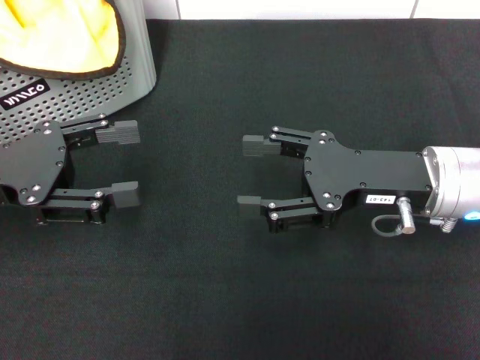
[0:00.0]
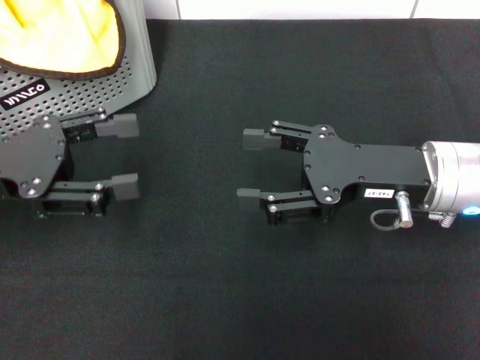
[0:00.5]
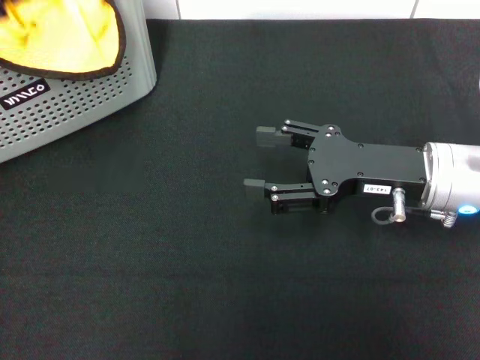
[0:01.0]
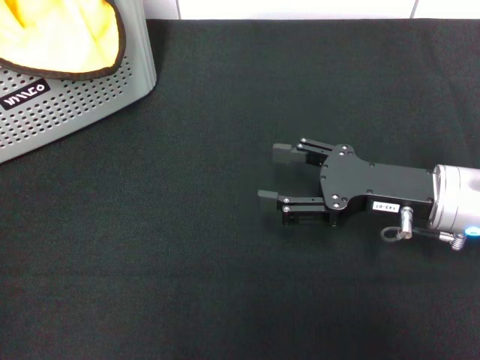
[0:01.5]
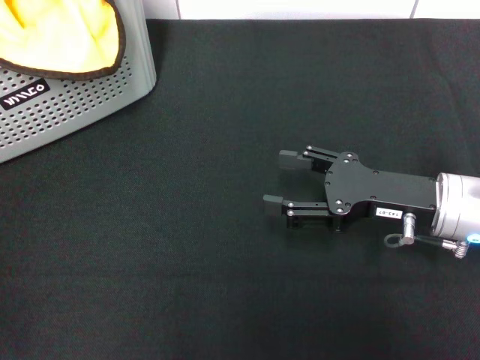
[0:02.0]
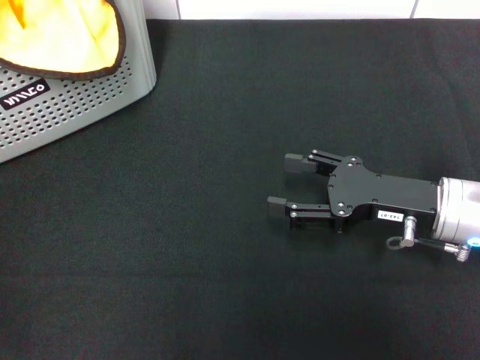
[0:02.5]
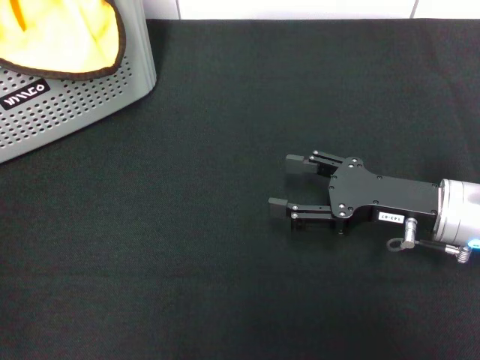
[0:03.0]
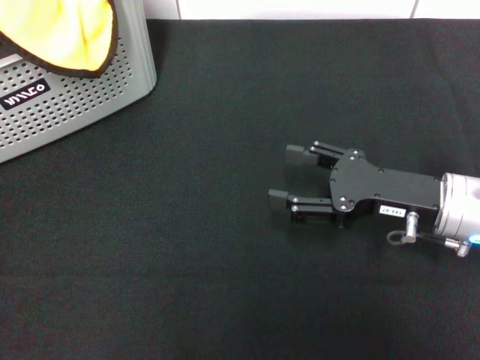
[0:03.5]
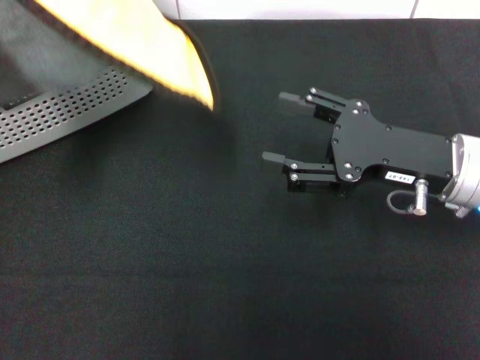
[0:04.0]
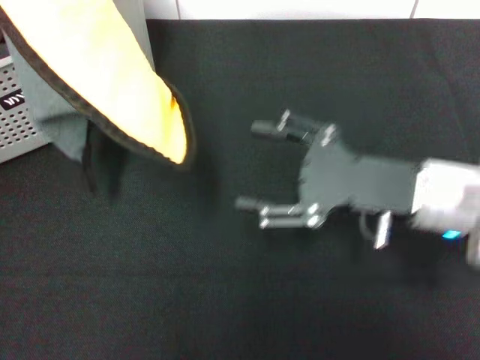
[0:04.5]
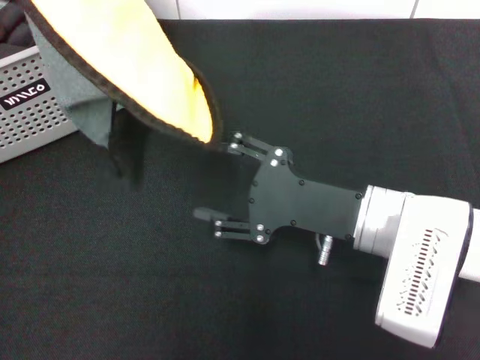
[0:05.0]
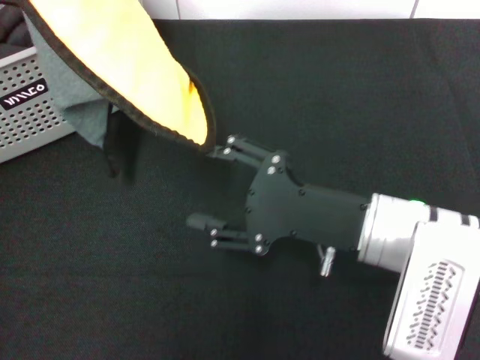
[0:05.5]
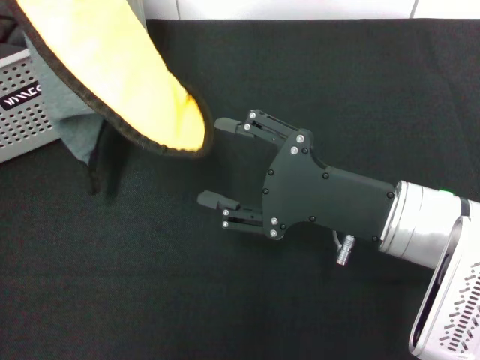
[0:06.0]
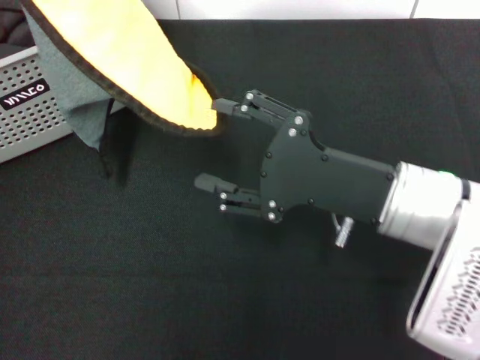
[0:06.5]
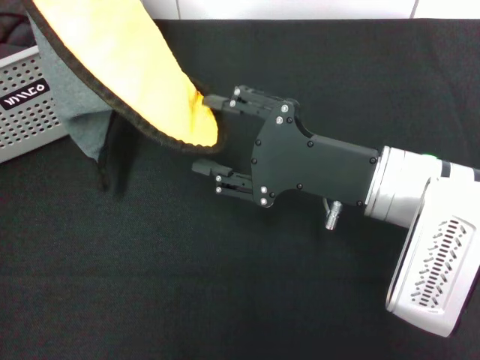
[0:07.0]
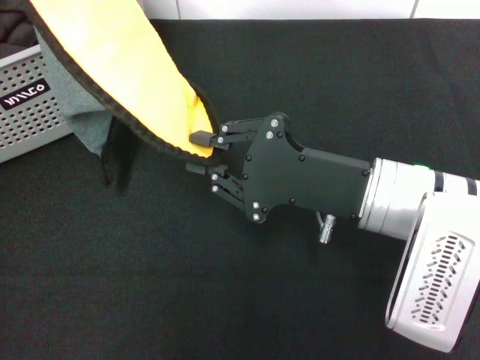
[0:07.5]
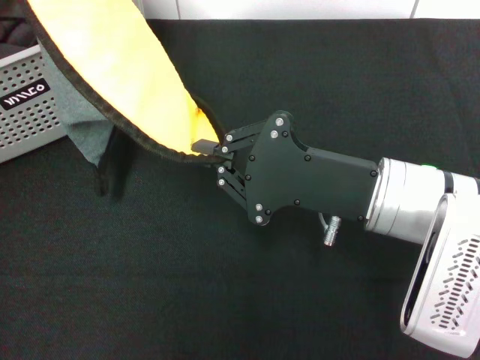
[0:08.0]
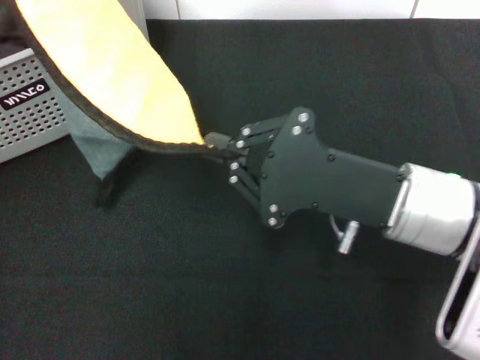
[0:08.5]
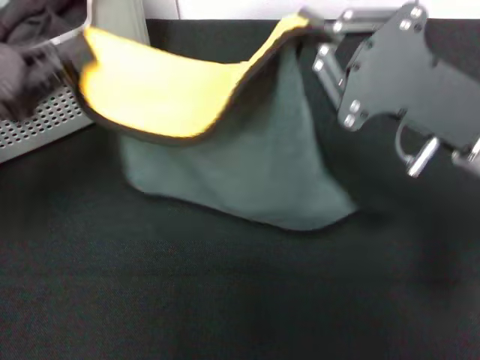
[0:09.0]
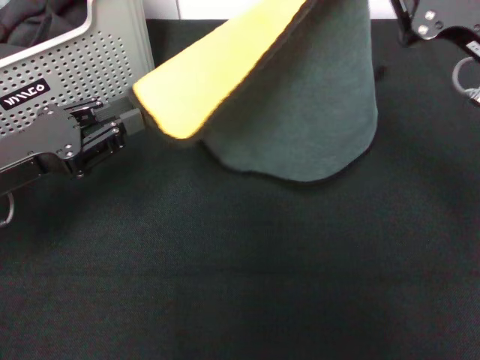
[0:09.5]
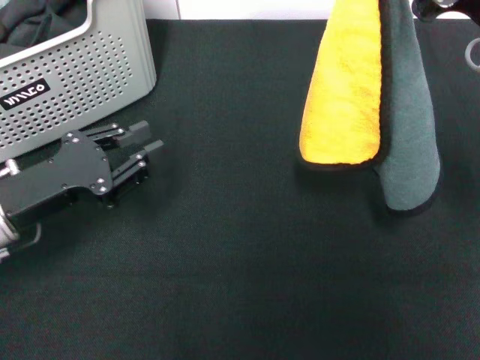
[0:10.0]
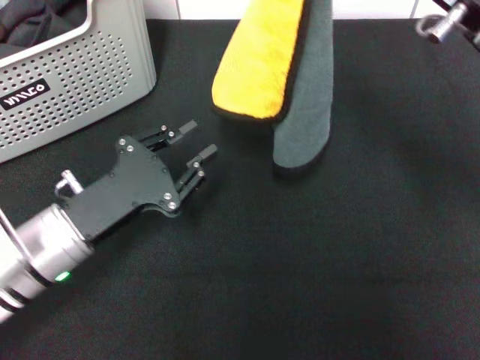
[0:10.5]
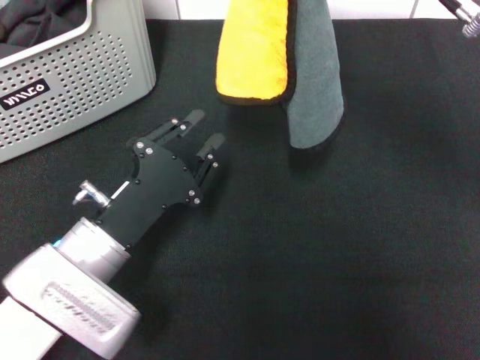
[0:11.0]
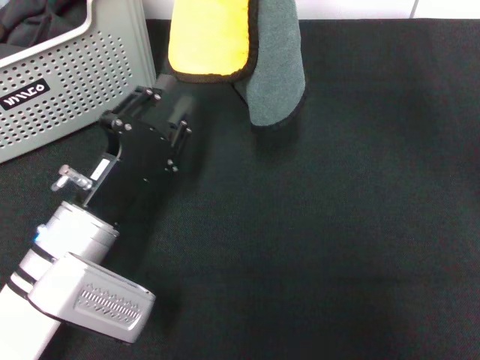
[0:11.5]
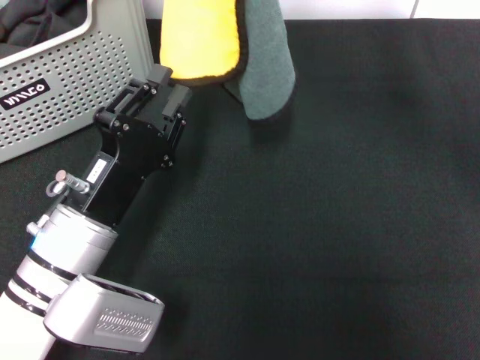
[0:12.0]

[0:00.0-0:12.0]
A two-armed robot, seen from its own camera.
Task of the whole recording: pick up the towel from the storage box and lay it flat on the black tablecloth.
Step, 0:00.0 to 0:02.5: Pick up a towel with the left gripper.
Step, 0:03.0 to 0:08.0: Spread the towel flat with the left gripper.
0:00.0 to 0:02.0: The left gripper goes roughly 15 cm forward, upward and to the left.
0:02.0 to 0:04.0: The left gripper shifts roughly 10 cm backward and upward, and closes.
0:04.0 to 0:06.0: The right gripper is displaced backward and to the left by some 10 cm.
0:06.0 to 0:08.0: The right gripper closes.
0:08.0 to 0:10.0: The right gripper travels to the right and upward by approximately 10 cm; the left gripper travels downward by about 20 cm, and opens up.
0:10.0 to 0:12.0: The left gripper is displaced to the right by some 10 cm; the right gripper heads to the left, upward and forward, covering roughly 15 cm.

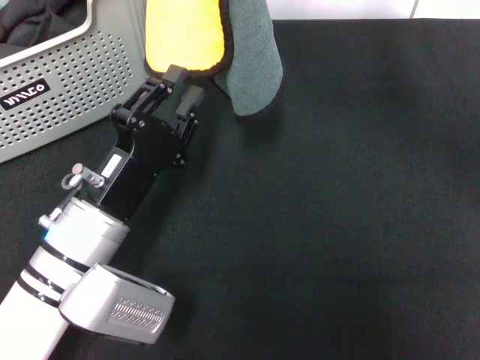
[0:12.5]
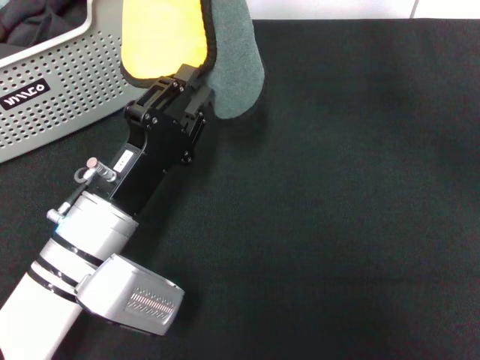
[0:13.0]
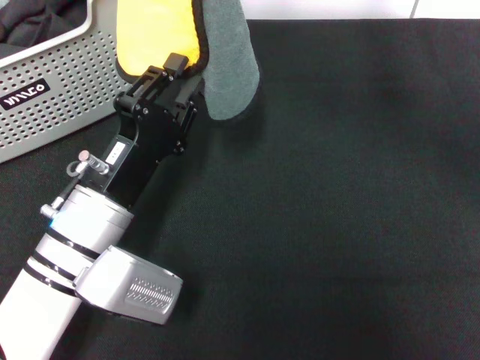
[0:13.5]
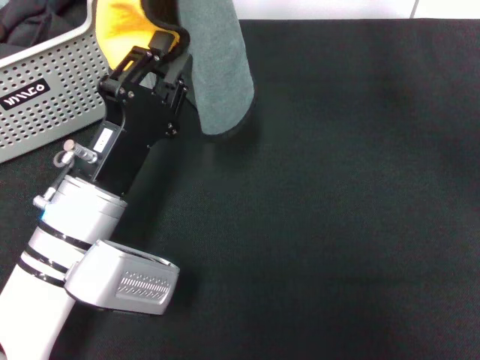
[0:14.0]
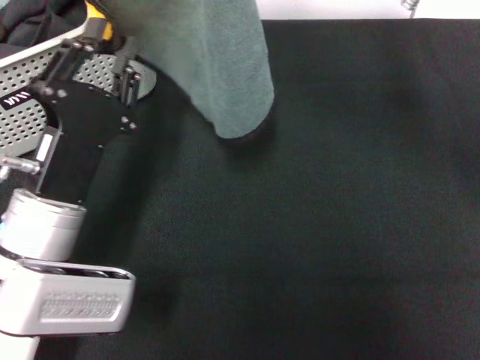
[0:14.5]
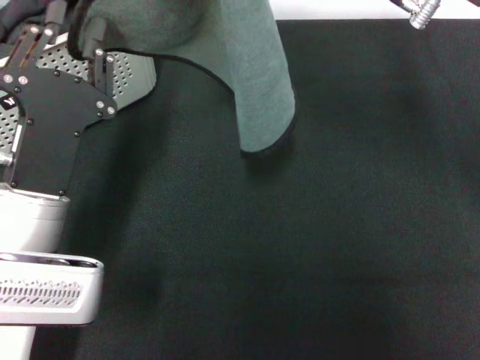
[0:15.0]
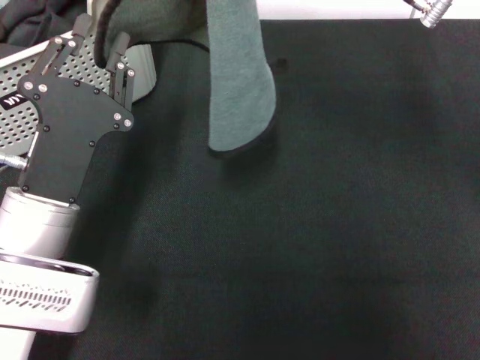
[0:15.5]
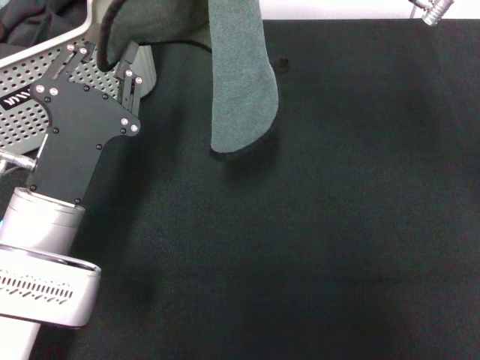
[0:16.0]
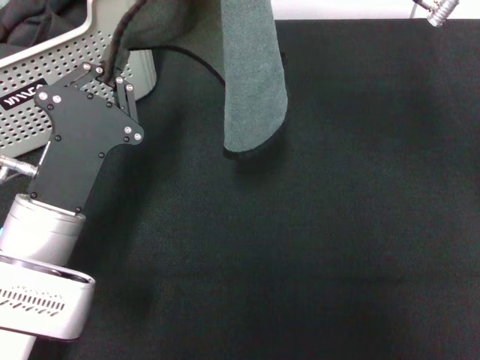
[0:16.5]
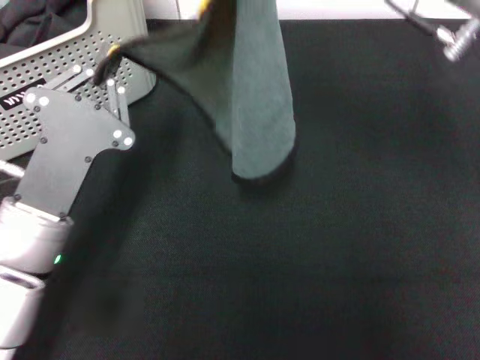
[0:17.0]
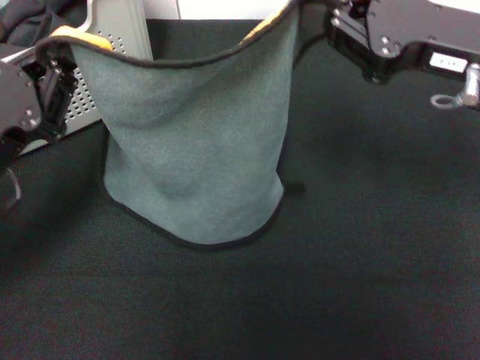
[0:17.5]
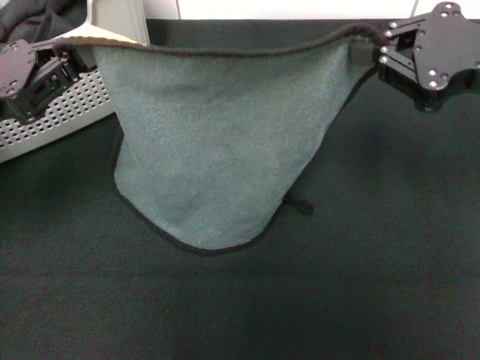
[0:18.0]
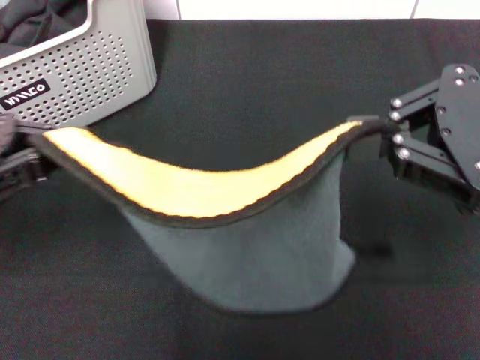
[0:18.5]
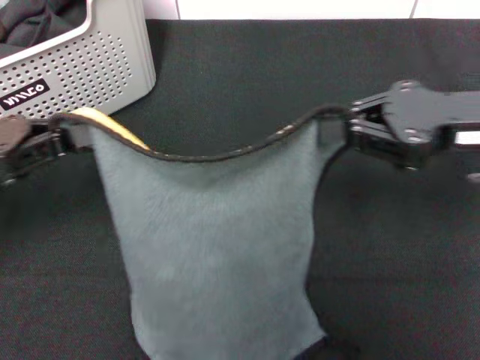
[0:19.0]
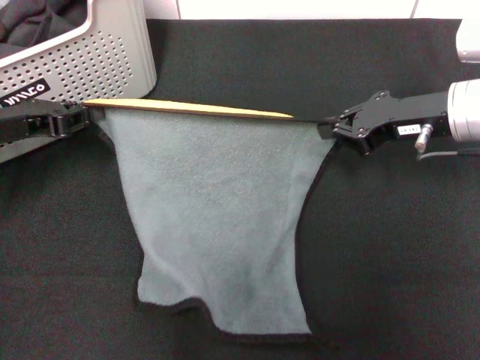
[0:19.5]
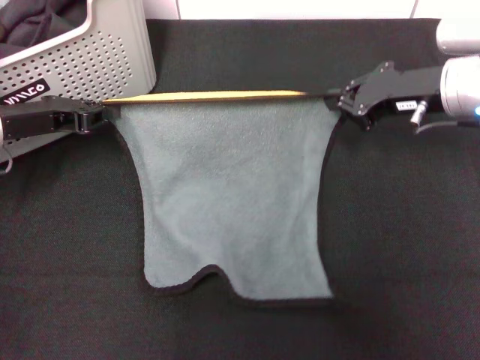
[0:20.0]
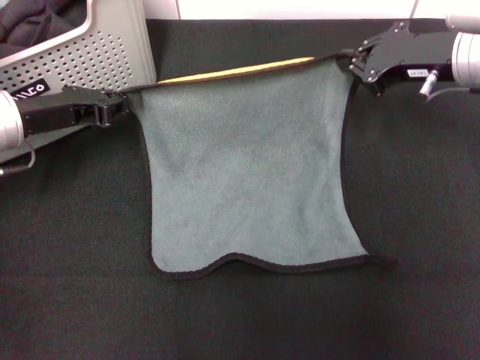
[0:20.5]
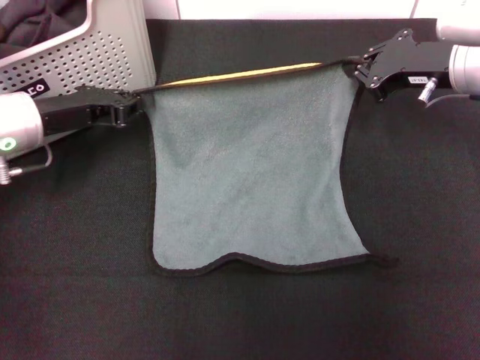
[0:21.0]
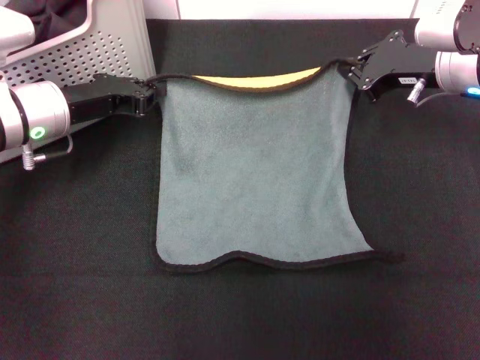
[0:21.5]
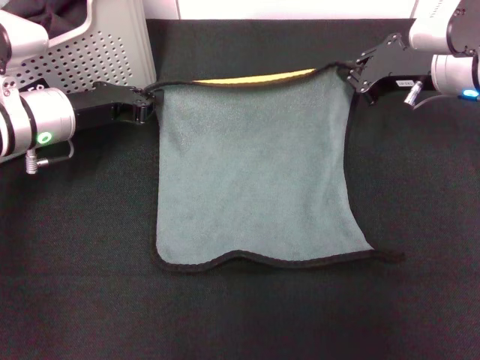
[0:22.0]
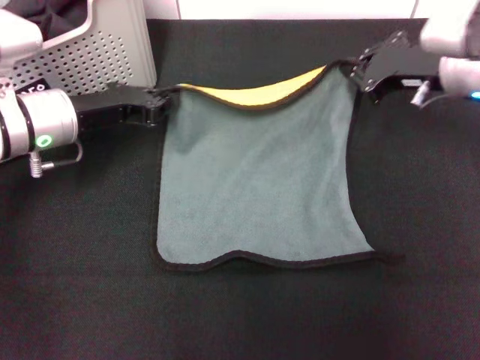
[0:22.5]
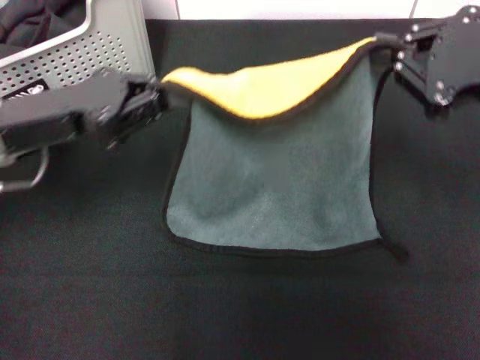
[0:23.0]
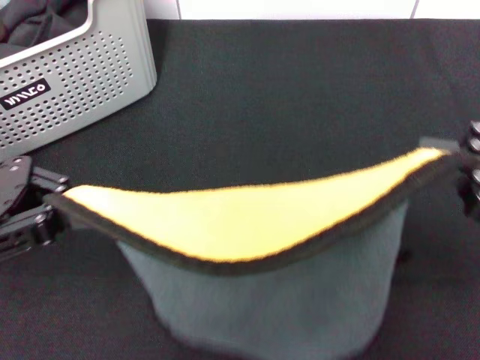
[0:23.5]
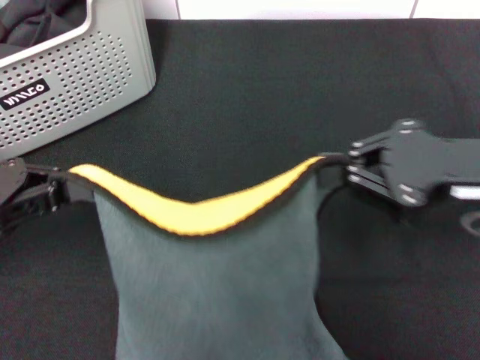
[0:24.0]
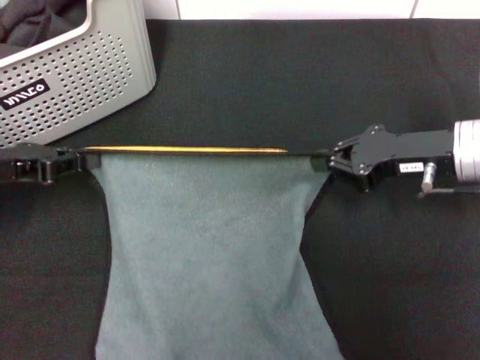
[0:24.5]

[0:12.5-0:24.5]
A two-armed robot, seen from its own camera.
Task of the whole recording: pick up the towel from the storage box and lay it flat on the black tablecloth.
0:16.5 to 0:18.5: The left gripper goes approximately 15 cm to the left and upward, while the right gripper moves backward and to the right, some 15 cm.
0:18.5 to 0:20.5: The grippers both shift forward and downward by approximately 15 cm.
0:20.5 to 0:22.5: There are only small adjustments of the grippers.
0:22.5 to 0:24.5: The left gripper is displaced to the left and backward by approximately 10 cm; the right gripper reaches approximately 20 cm backward, then returns.

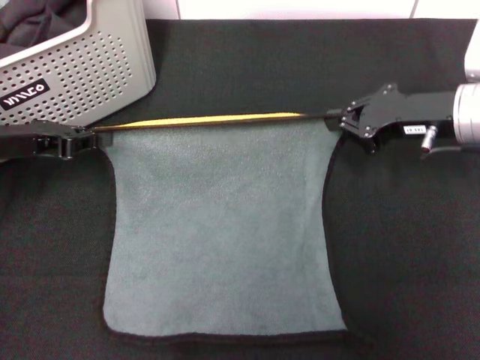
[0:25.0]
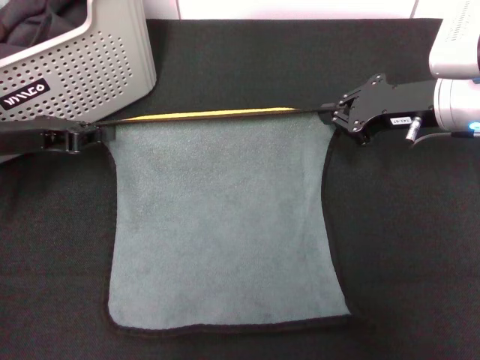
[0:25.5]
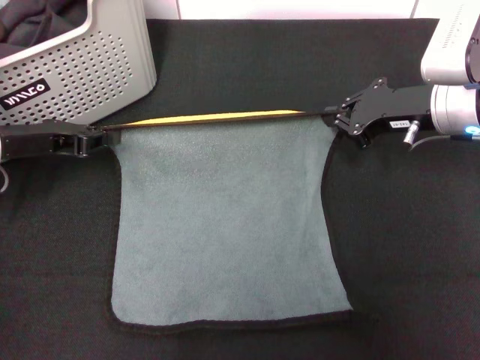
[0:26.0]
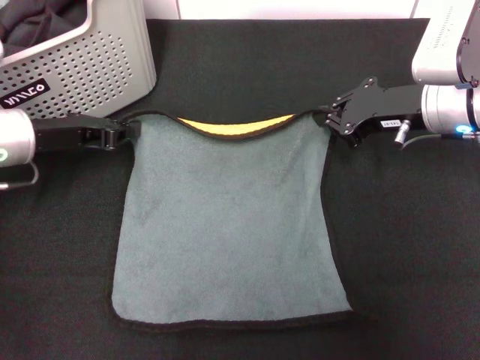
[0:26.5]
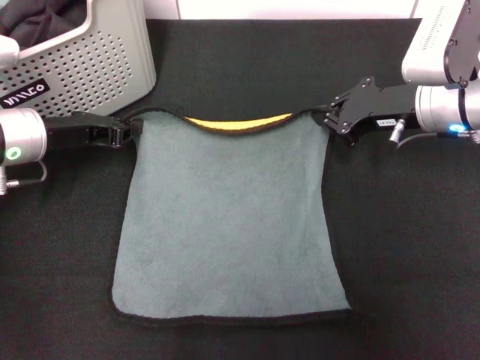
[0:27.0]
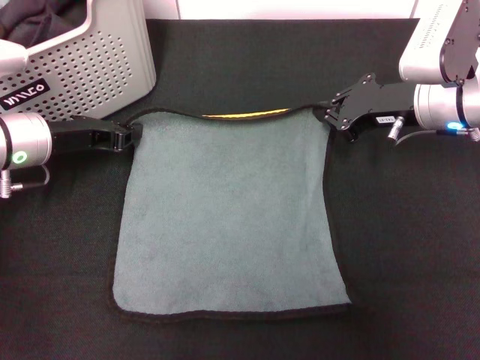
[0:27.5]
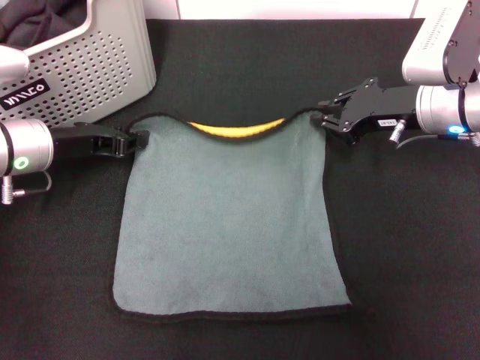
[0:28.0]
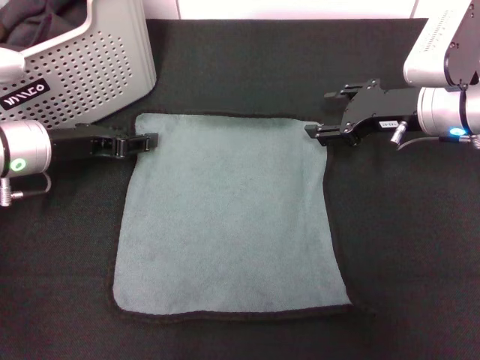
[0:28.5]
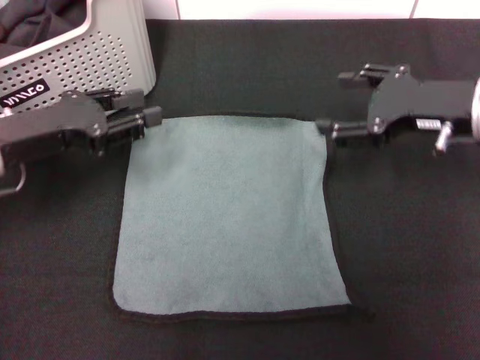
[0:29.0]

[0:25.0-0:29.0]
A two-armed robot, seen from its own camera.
Task of the whole recording: pick up the towel from the storage box and lay it flat on the black tablecloth.
Step, 0:25.0 to 0:28.5: Spread the towel flat with the right gripper.
0:25.0 to 0:27.0: The left gripper ends up roughly 5 cm from where it was.
0:27.0 to 0:29.0: Both grippers move backward, about 5 cm. The right gripper opens its fingers. Meanwhile the left gripper opens.
